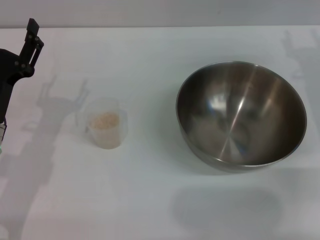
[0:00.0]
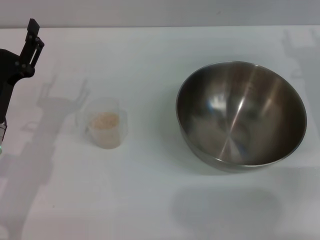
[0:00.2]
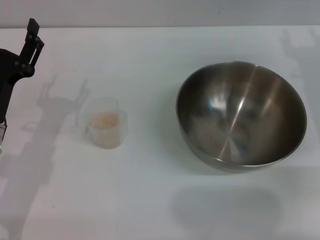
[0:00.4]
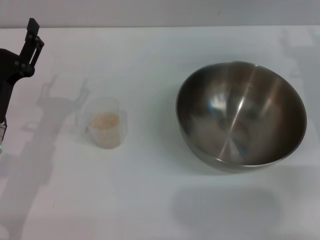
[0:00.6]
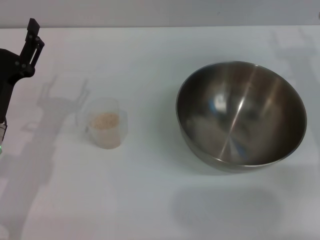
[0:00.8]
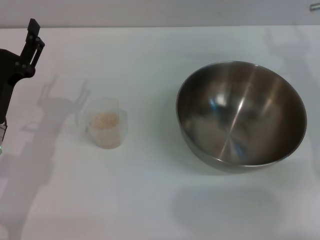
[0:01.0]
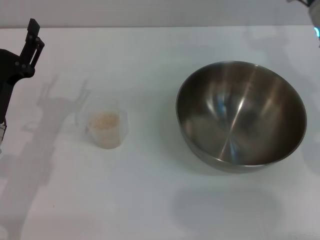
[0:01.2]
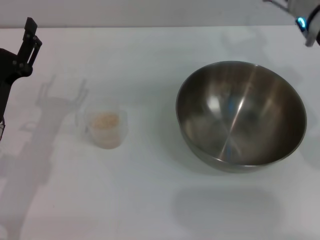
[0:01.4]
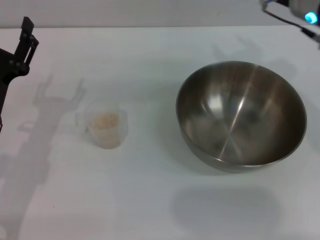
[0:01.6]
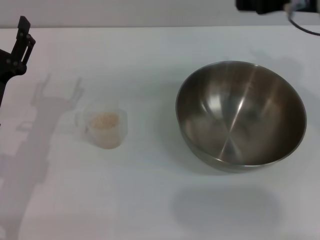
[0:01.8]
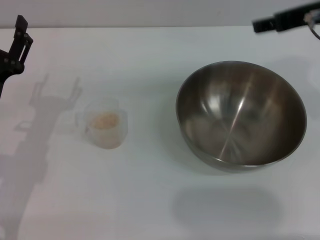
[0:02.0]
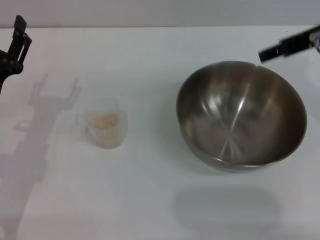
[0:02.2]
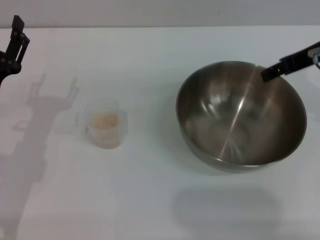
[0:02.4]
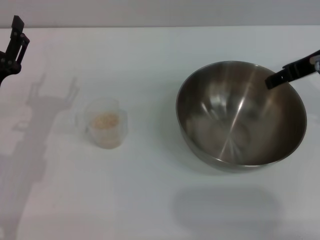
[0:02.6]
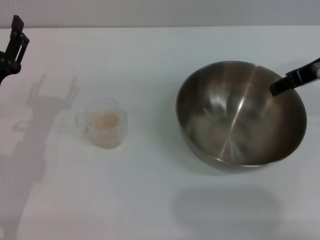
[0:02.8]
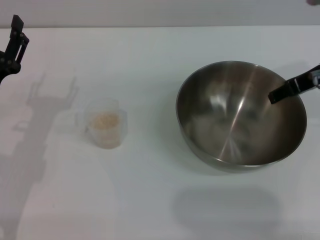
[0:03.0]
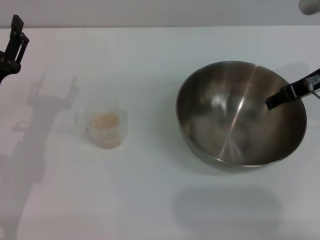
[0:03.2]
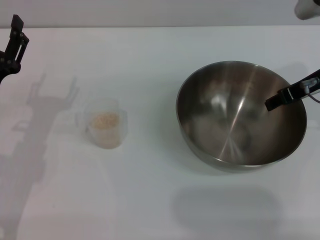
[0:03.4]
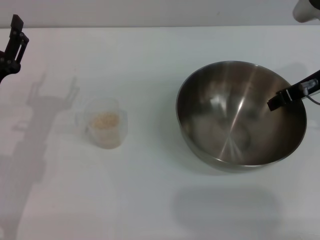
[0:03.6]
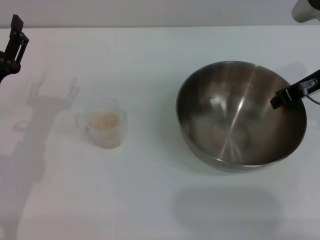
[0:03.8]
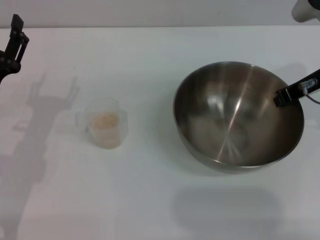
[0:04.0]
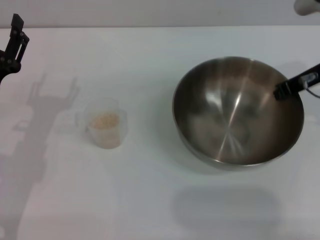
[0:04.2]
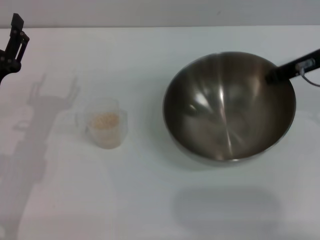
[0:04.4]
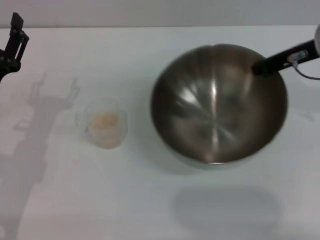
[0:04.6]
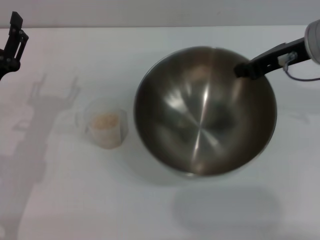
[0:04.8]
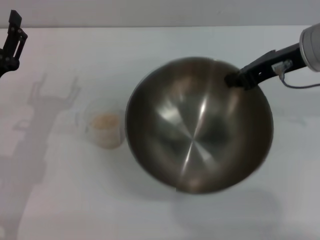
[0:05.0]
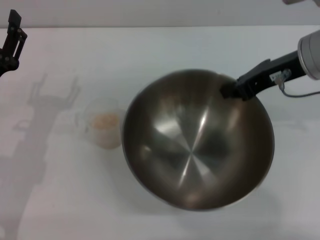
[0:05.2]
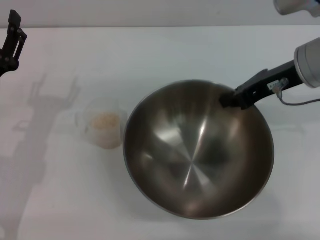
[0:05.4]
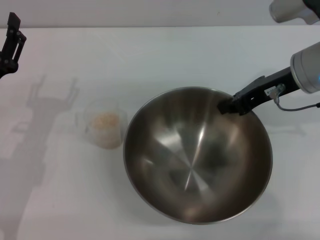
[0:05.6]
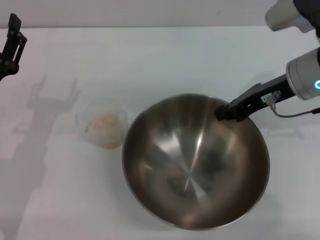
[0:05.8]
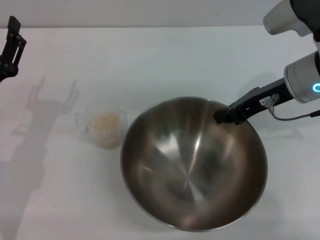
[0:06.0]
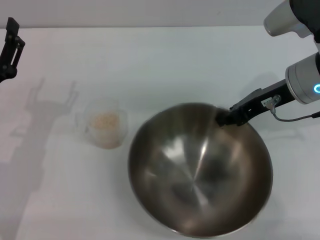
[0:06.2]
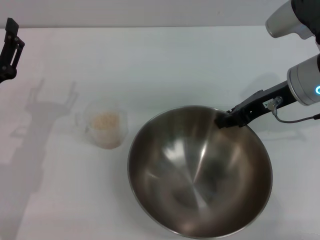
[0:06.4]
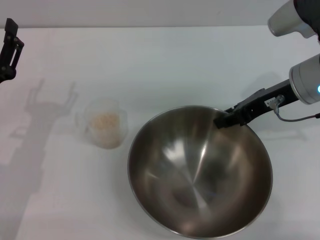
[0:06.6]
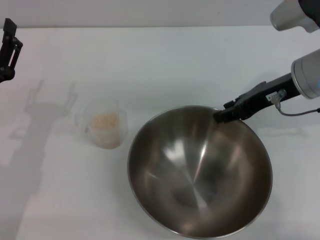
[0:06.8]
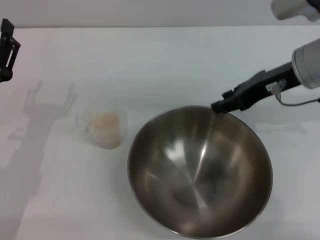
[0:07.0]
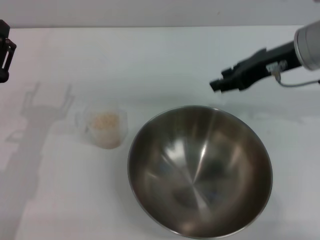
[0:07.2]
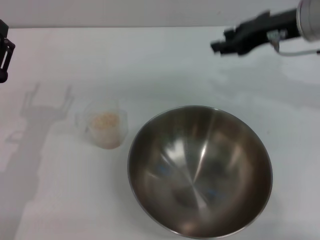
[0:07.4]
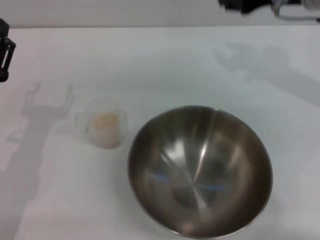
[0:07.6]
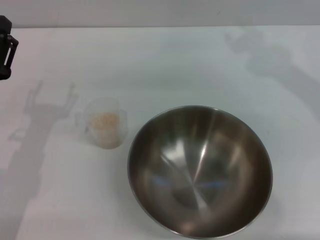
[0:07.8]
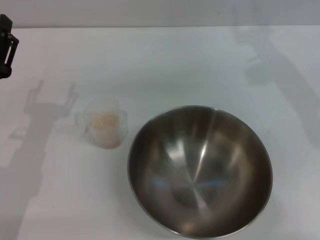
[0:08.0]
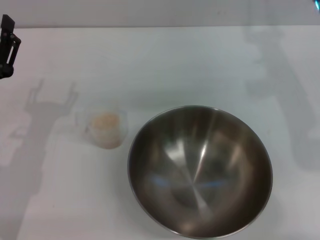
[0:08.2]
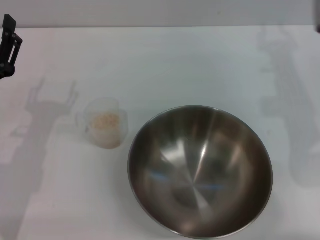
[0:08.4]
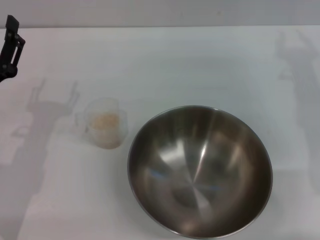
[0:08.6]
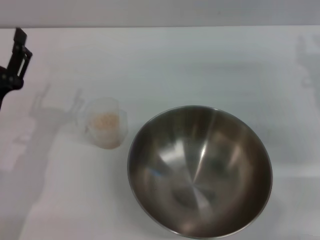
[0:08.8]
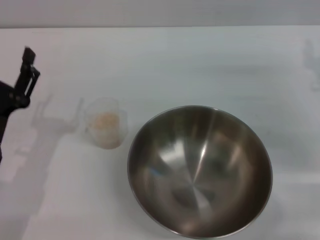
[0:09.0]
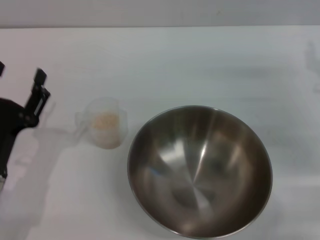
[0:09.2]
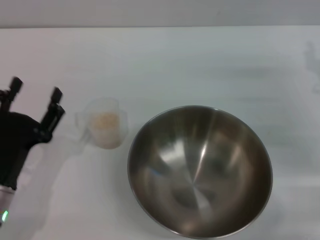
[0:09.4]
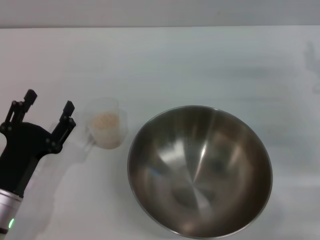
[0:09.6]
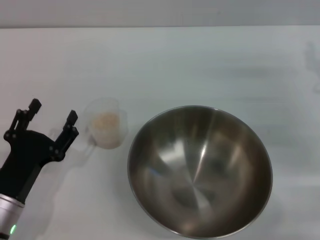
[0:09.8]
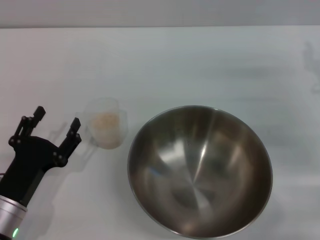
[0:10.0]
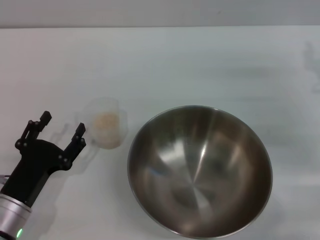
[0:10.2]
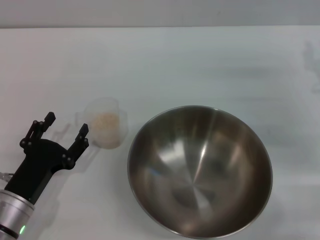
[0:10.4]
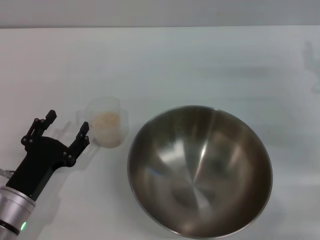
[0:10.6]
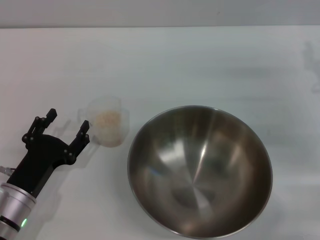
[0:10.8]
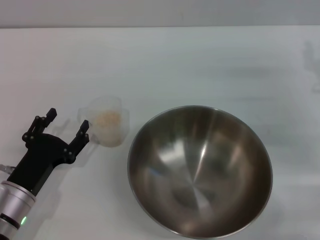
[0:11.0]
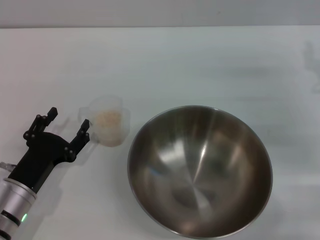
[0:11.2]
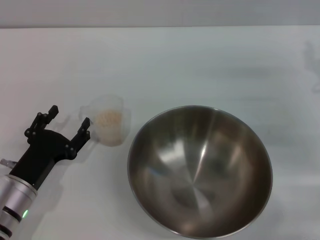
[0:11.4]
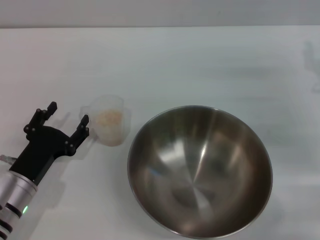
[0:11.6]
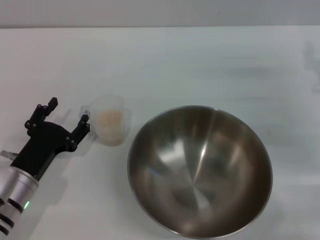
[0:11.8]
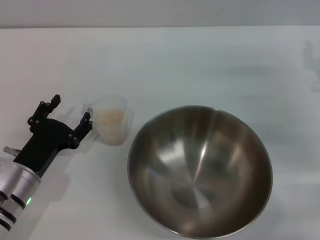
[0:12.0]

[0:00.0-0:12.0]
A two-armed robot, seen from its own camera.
Task of the whole recording: Place the bowl in the middle of the table with one hand and pour the rice from the grain cup into it with the other hand.
Step, 0:00.0 to 0:04.6: Pick up the bowl with the right gripper.
Step, 0:04.8 to 0:07.0: Place the bowl in the center of view with the right gripper.
0:00.0 to 0:01.6: The right gripper goes roughly 15 cm upward and to the left.
0:01.6 to 0:03.0: The right gripper travels to the right by approximately 5 cm.
0:03.0 to 0:04.4: The right gripper closes up.
0:06.0 to 0:07.6: The right gripper heads upward, covering some 10 cm, and opens up.
0:07.6 to 0:09.0: The right gripper is displaced downward, to the right and backward by some 20 cm.
0:09.0 to 0:10.4: The left gripper is displaced downward by some 5 cm.
0:10.4 to 0:12.0: The grippers move only a little.

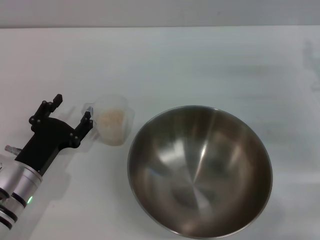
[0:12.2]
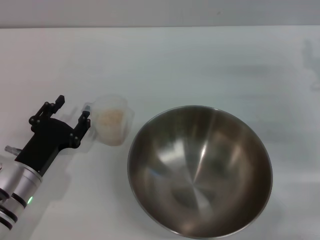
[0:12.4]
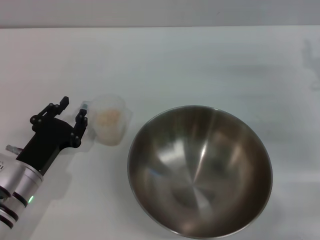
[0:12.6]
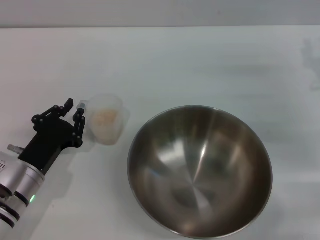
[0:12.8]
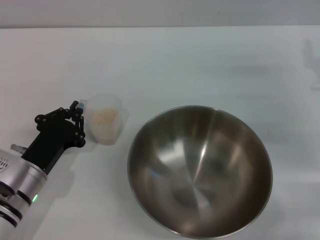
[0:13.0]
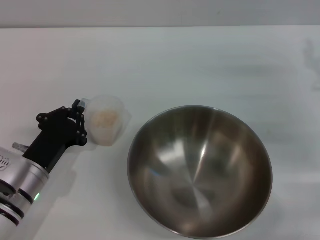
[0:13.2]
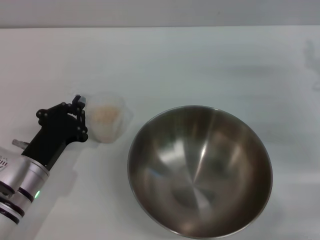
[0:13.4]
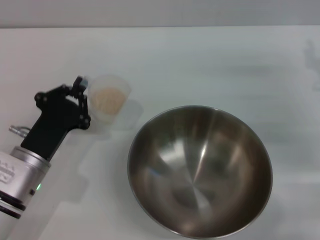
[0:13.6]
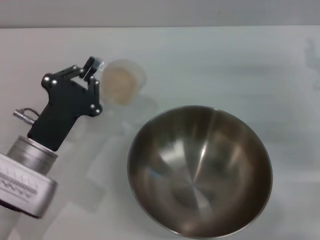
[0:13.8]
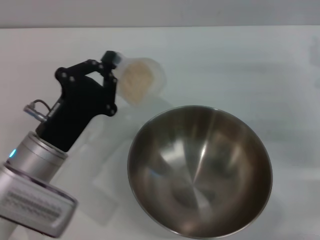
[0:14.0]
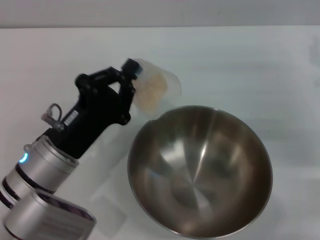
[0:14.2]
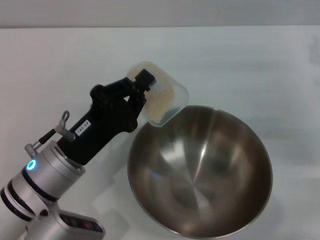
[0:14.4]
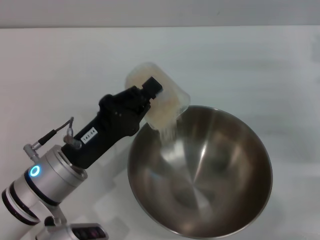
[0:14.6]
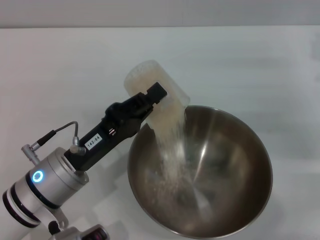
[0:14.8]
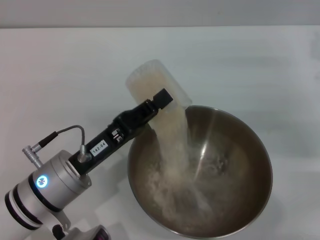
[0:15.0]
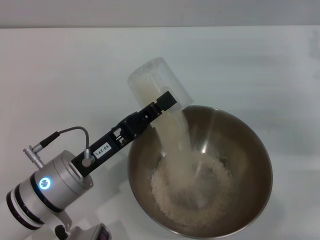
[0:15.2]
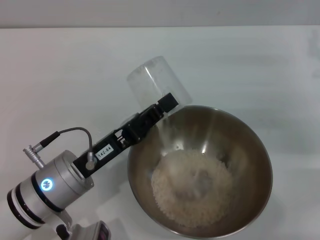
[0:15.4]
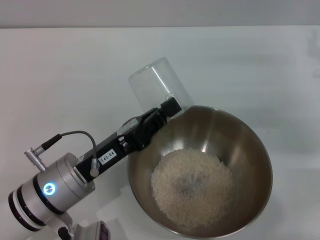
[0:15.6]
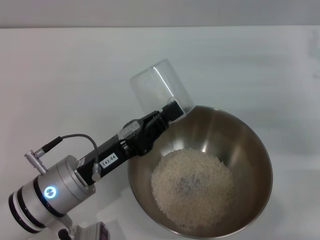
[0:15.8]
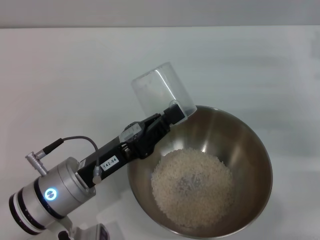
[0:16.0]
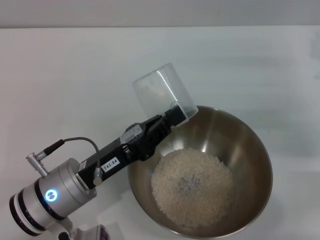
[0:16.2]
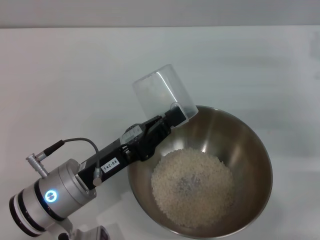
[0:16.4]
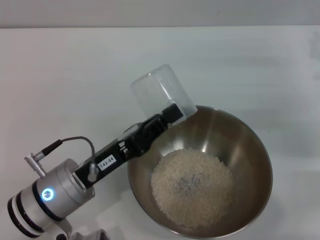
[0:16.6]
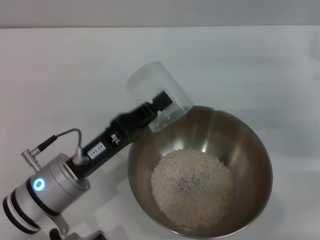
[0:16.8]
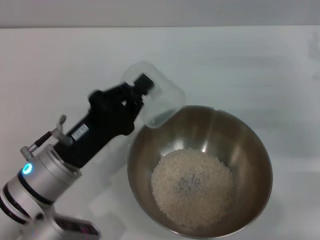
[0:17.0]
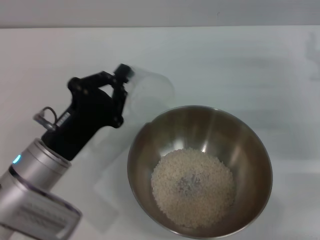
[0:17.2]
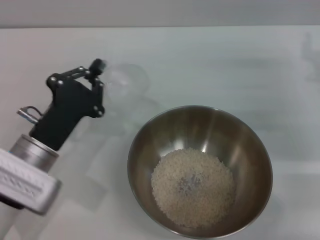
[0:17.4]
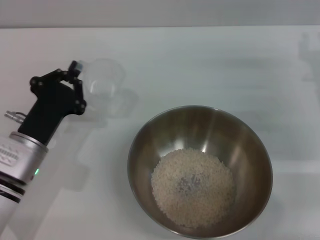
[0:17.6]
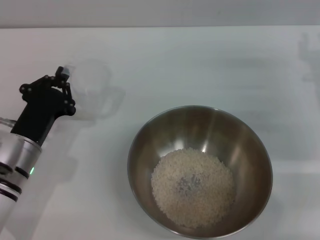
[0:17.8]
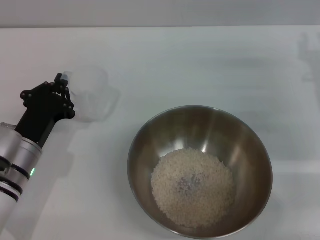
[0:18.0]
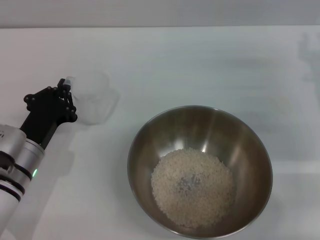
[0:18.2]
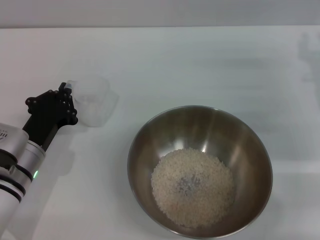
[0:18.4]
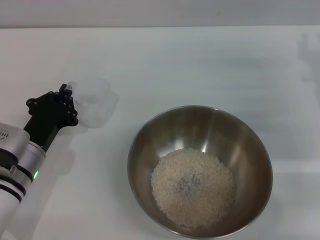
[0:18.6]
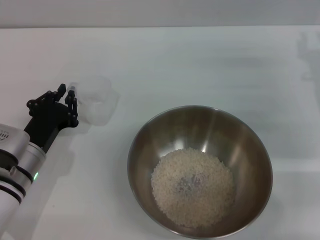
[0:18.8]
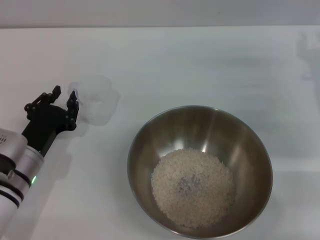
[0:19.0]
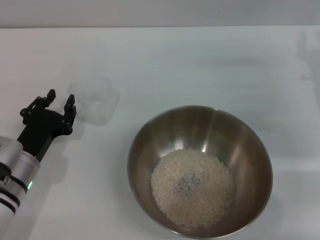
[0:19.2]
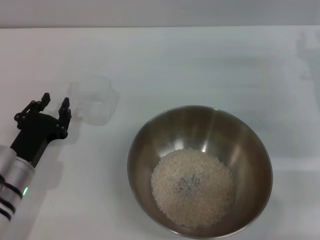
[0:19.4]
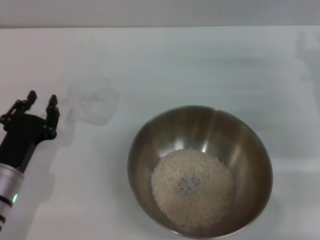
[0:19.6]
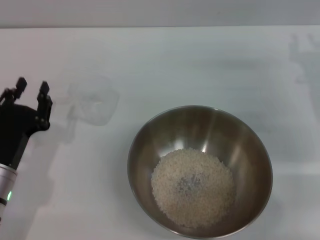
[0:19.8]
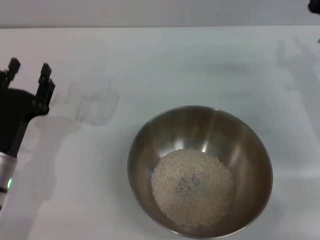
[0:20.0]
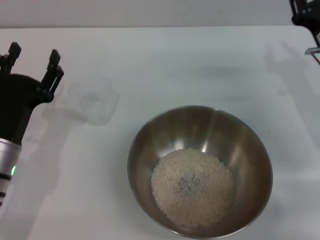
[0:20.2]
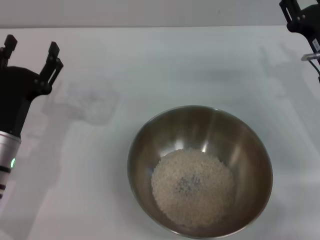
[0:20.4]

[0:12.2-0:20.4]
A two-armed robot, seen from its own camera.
Task of the whole recording: Place the bowl in the middle of the table with one hand and pour the rice from the grain cup into it with the other hand.
Step, 0:13.8 to 0:16.4: Pour the rice from the cup into the bowl with the left gripper.
Step, 0:16.6 to 0:19.2: Place the cup on the table with the left gripper.
0:12.2 to 0:13.8: The left gripper ends up roughly 5 cm from where it was, and closes its fingers.
0:17.2 to 0:18.8: The left gripper moves roughly 5 cm.
0:18.8 to 0:20.4: The left gripper opens.

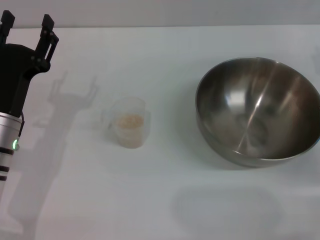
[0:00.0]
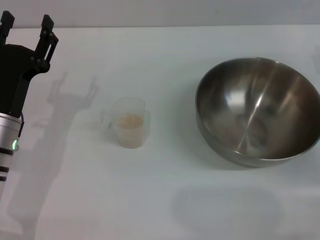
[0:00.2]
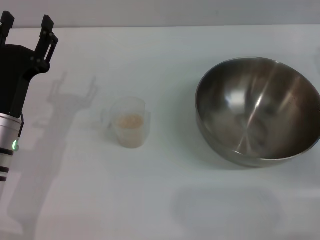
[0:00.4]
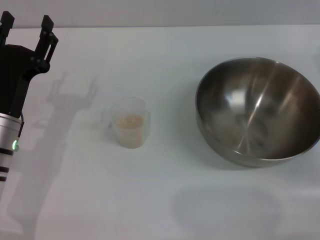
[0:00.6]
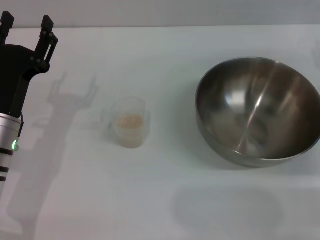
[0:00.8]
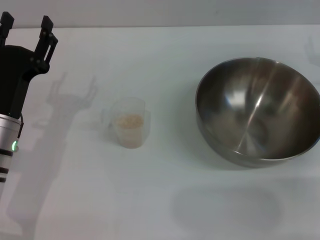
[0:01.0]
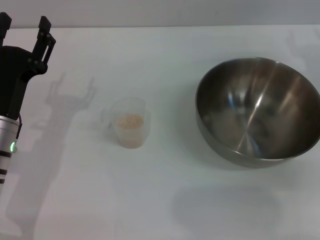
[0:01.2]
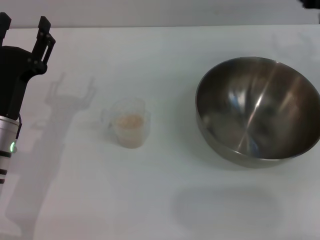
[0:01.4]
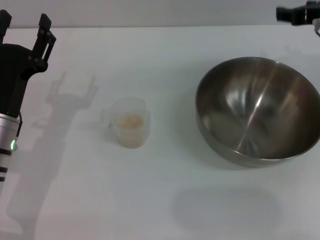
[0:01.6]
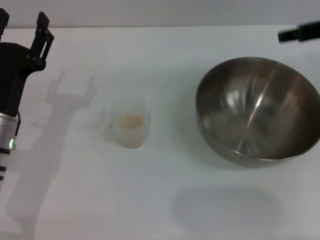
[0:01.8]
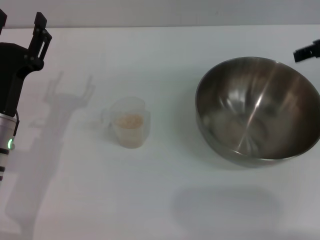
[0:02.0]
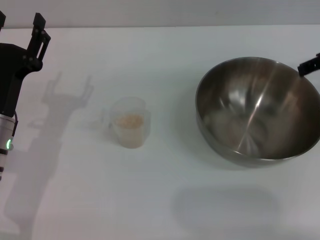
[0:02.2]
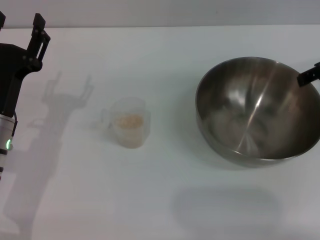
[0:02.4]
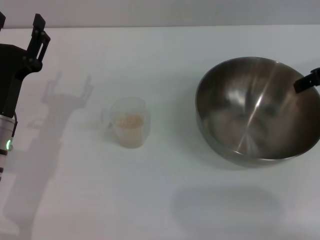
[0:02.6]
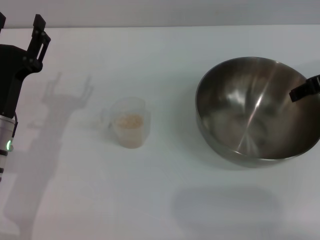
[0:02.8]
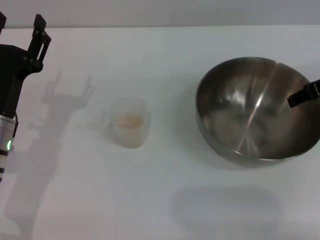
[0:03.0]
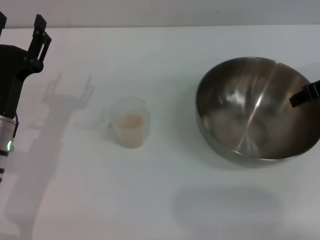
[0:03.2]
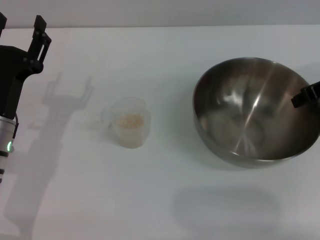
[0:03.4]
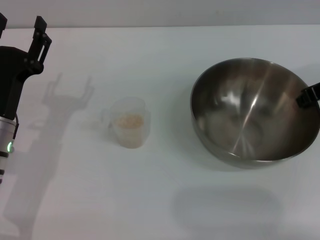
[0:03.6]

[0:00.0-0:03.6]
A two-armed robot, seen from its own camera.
Task of the whole recording: Place the bowl in the middle of the table with one hand and pour the rice from the grain cup into it with the other hand.
0:00.0 to 0:01.8: The right gripper travels upward and to the left by some 15 cm.
0:01.8 to 0:03.6: The right gripper closes up.
